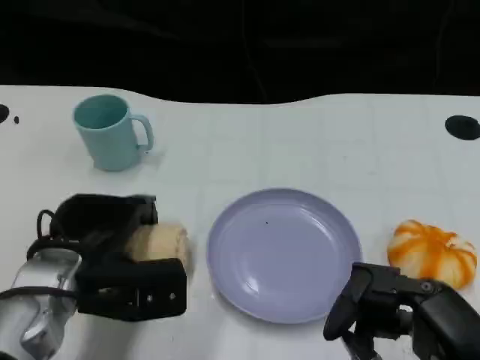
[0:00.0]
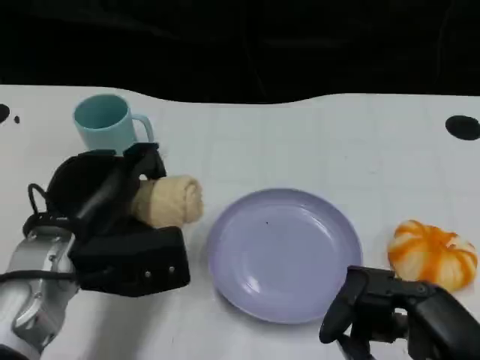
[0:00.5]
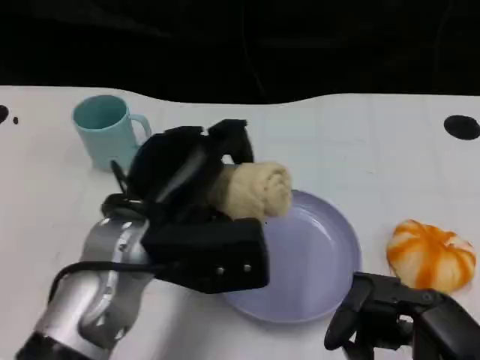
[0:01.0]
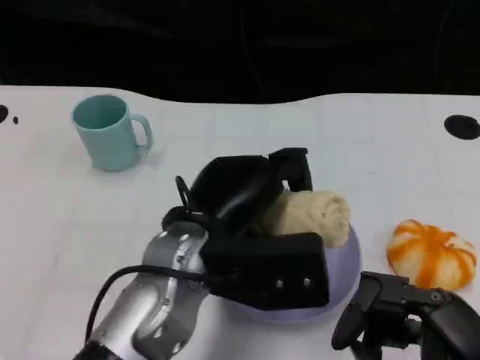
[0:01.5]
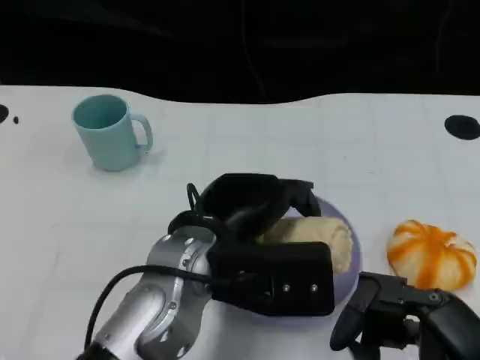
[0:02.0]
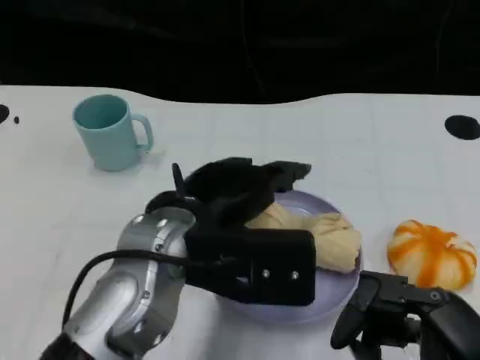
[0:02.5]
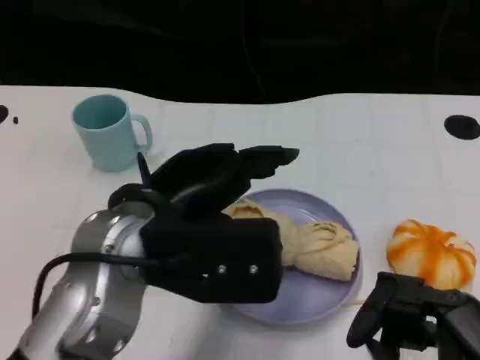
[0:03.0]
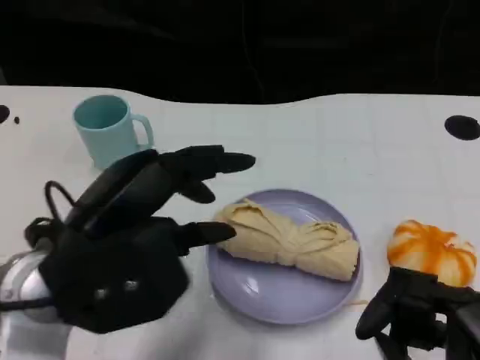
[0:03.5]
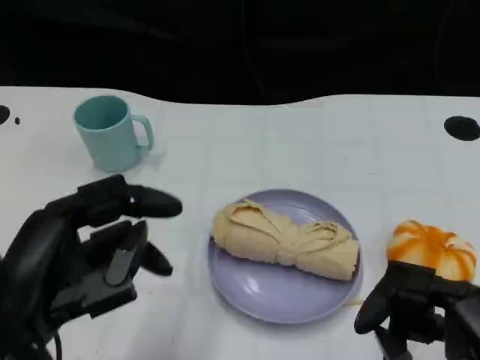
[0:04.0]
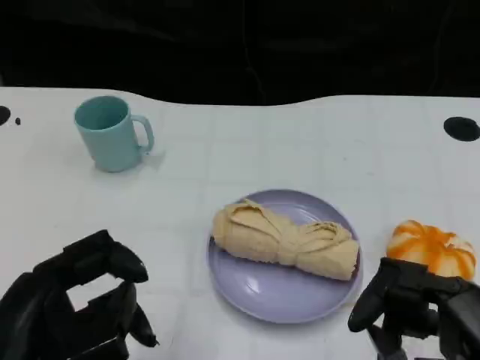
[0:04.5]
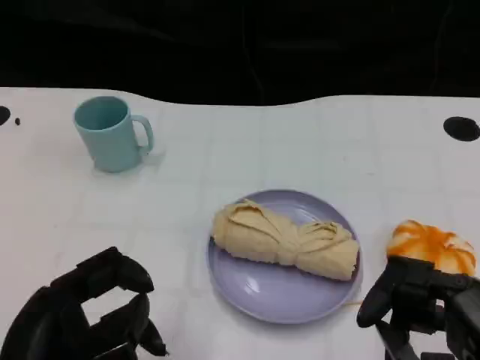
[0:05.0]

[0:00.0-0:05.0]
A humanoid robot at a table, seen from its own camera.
Task of the whole recording: Grasp the towel on the left side of the plate with the left hand and place it into the plate.
0:00.0 to 0:02.5: The left hand travels to the right and upward by some 15 cm.
0:02.5 to 0:05.0: The left hand shifts roughly 15 cm backward and to the left.

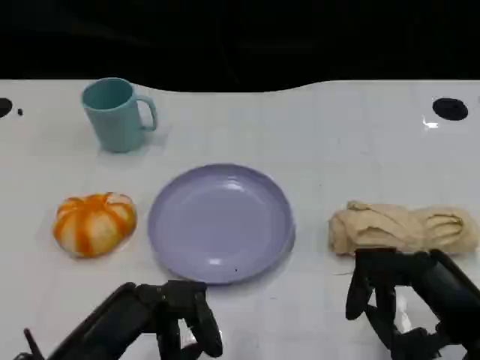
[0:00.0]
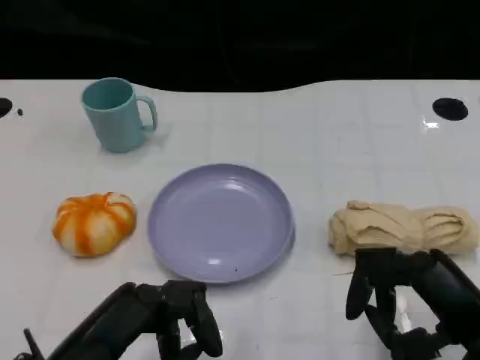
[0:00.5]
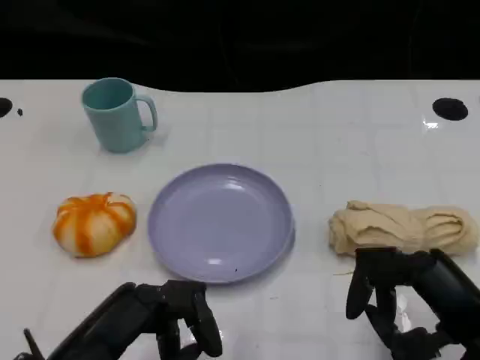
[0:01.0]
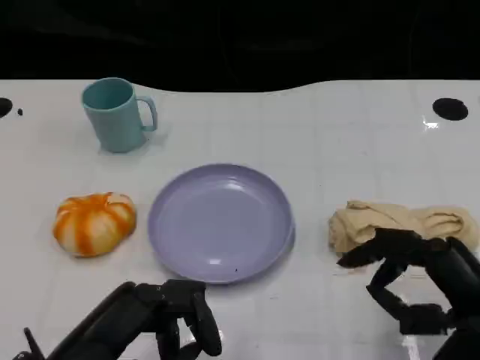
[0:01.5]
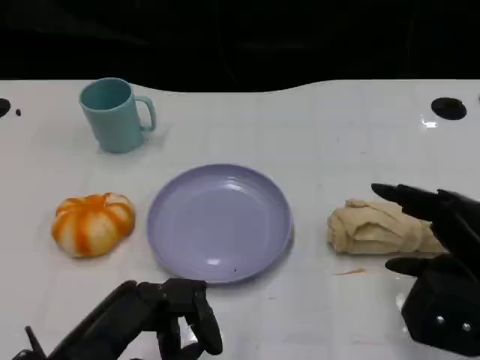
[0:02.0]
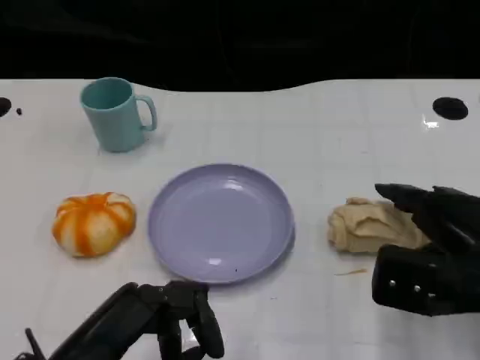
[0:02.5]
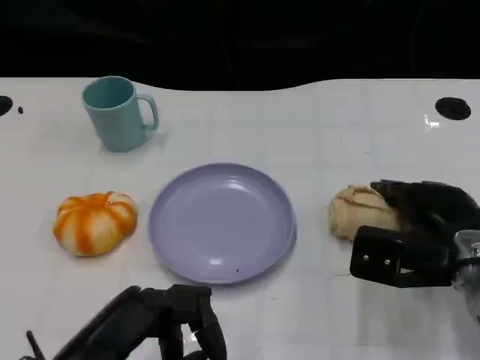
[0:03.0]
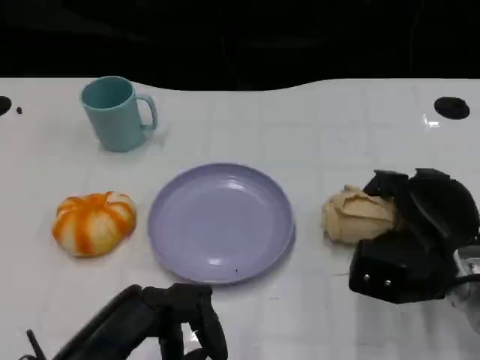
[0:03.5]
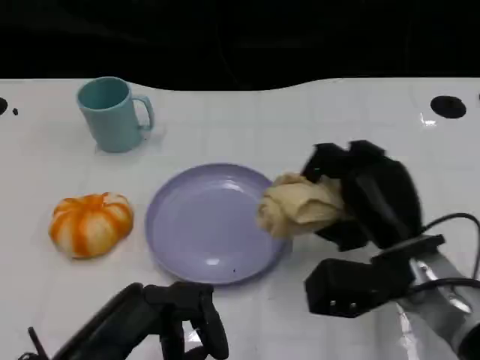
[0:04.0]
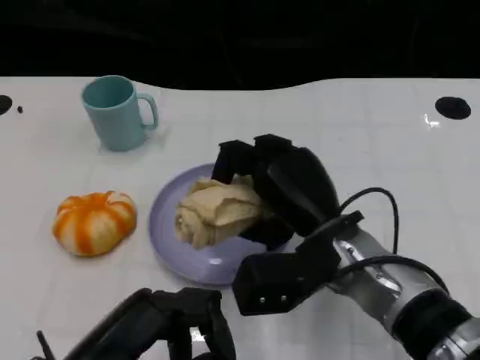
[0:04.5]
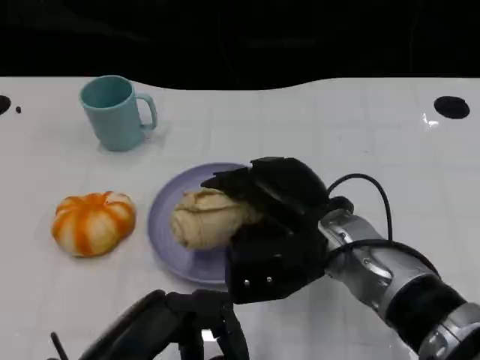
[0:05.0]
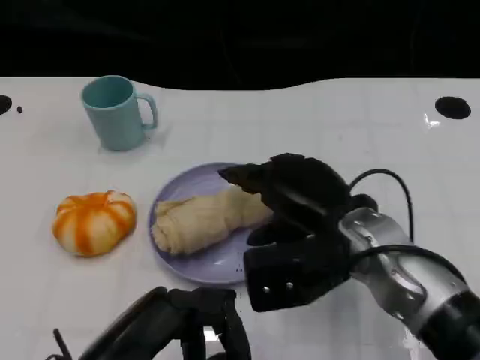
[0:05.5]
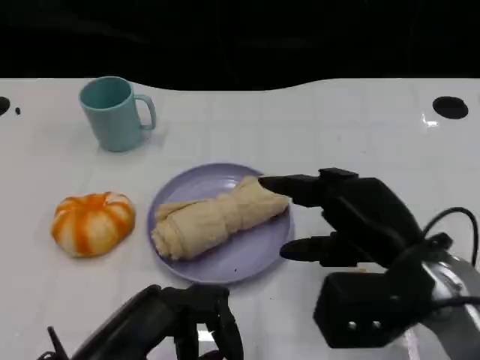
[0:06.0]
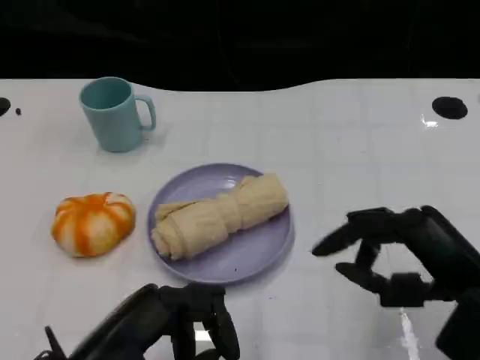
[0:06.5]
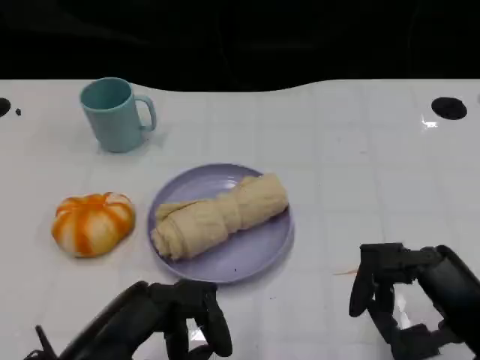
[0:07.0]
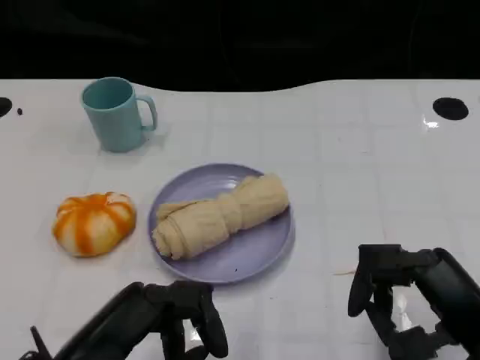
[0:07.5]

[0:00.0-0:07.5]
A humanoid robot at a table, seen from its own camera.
Task of the whole recording: Grasp the towel on the left side of the plate with the left hand and place it into the plate.
0:00.0 to 0:02.0: The right hand moves about 5 cm.
0:02.0 to 0:04.0: The right hand is displaced to the left and forward by about 10 cm.
0:04.0 to 0:05.5: The right hand changes place by roughly 5 cm.
0:05.5 to 0:07.5: The right hand moves to the right and backward, roughly 15 cm.
